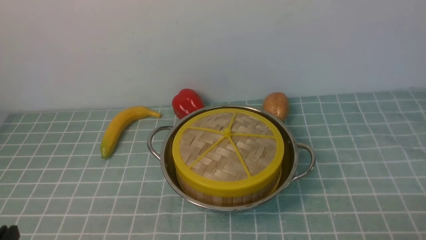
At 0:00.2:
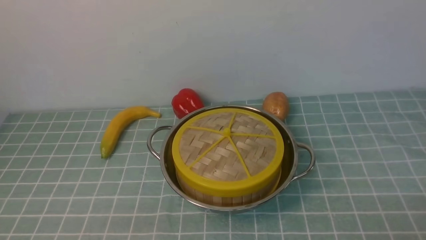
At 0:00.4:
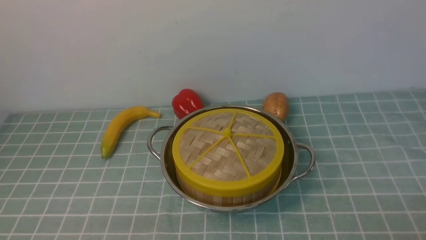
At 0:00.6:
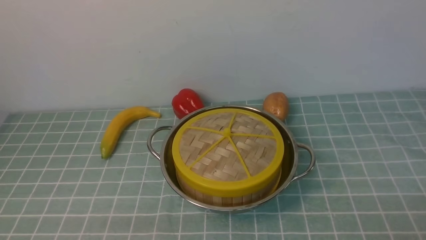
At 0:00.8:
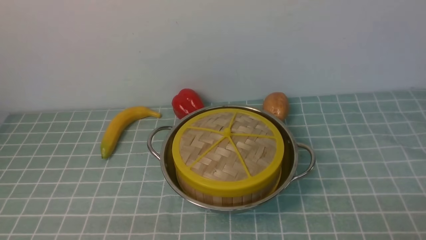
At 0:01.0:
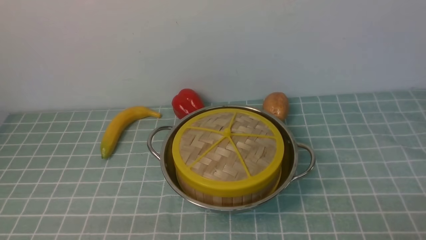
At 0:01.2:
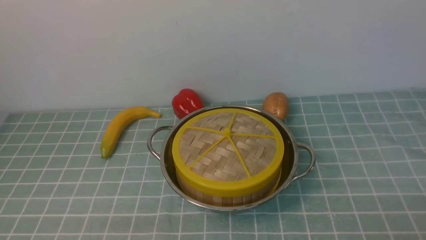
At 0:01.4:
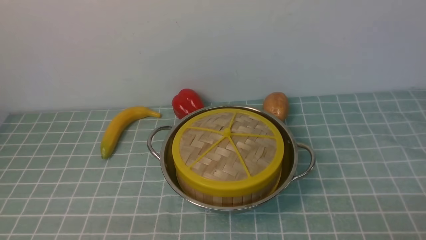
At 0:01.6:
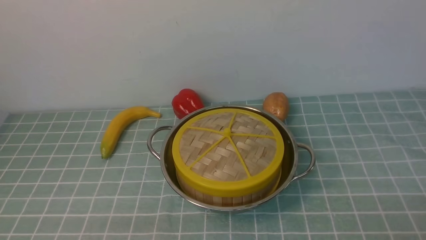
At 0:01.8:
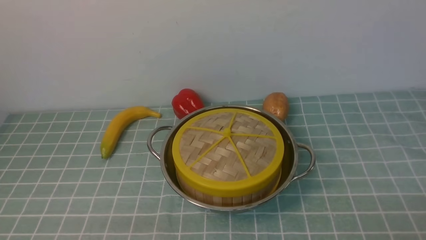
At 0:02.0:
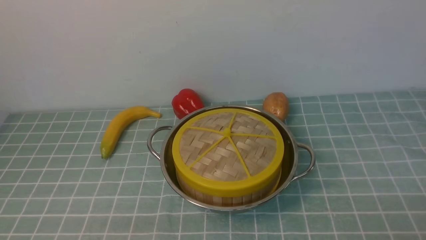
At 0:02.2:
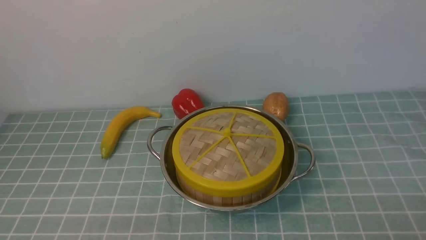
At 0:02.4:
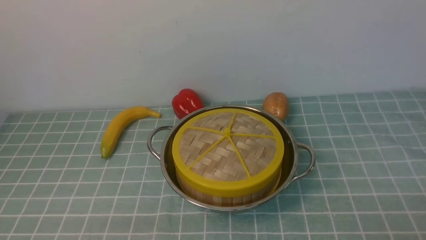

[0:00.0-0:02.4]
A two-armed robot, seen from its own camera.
Task of the whole recording: place the steamer in the pot on the blue tablecloth, and put the lid on the steamer.
0:01.2 to 0:02.4: Neither gripper changes place.
